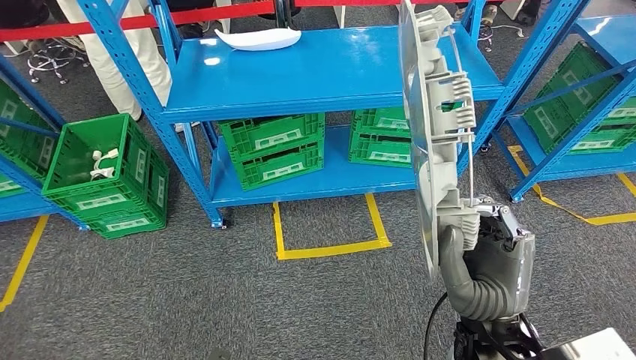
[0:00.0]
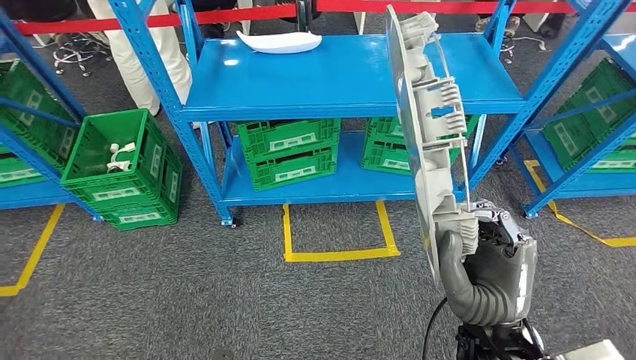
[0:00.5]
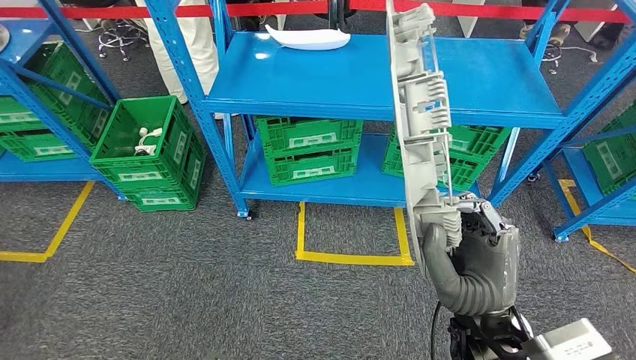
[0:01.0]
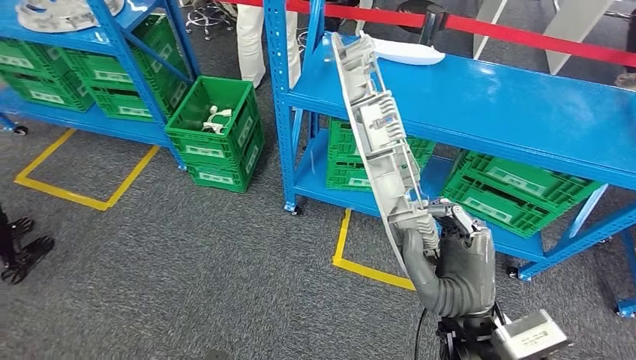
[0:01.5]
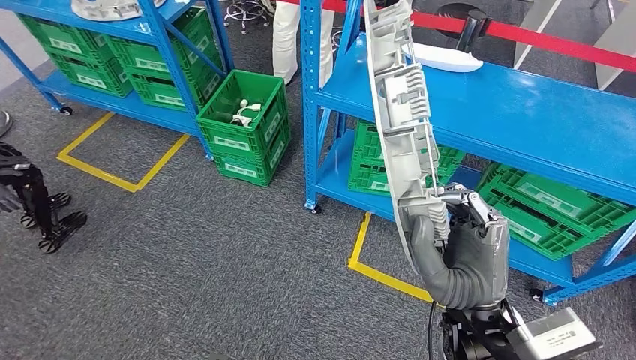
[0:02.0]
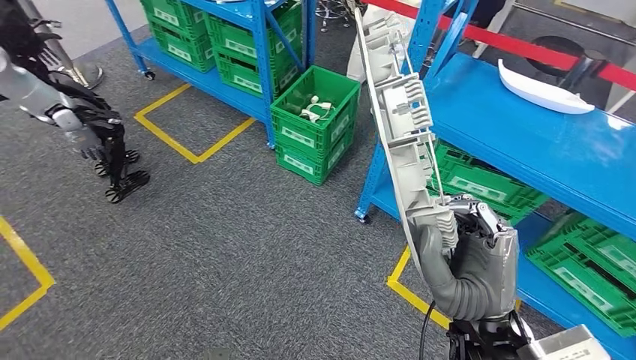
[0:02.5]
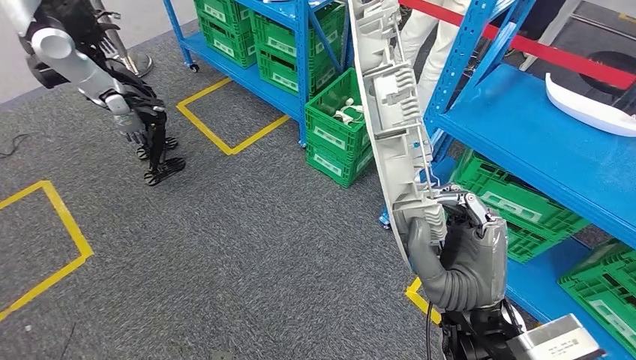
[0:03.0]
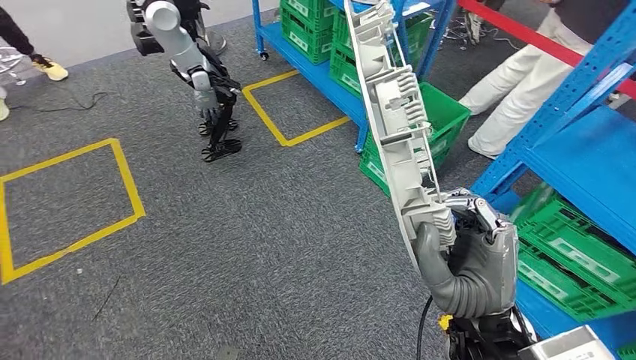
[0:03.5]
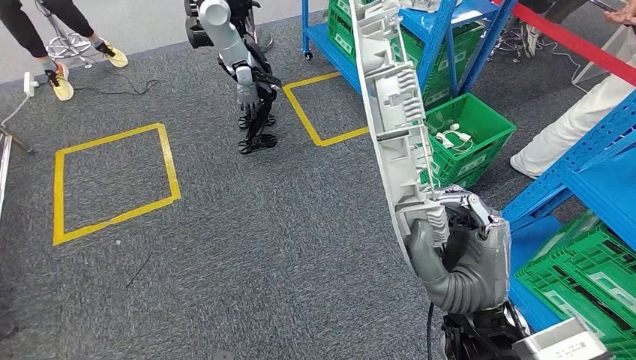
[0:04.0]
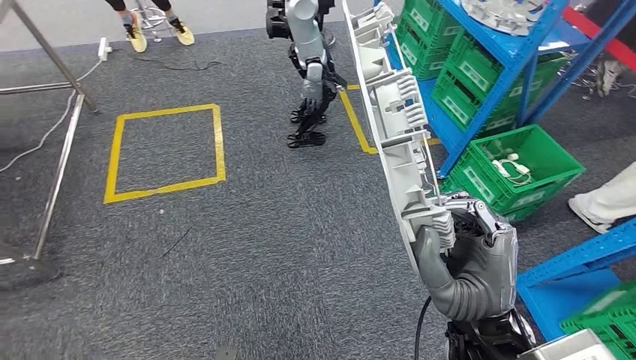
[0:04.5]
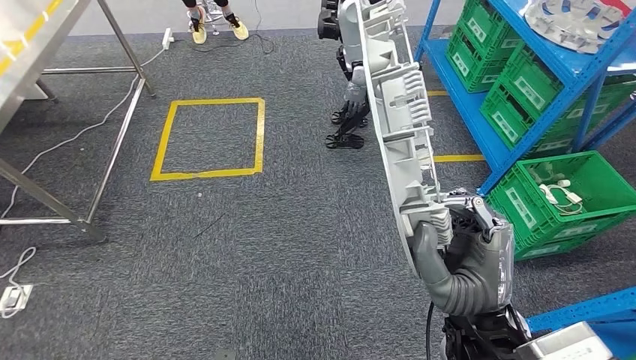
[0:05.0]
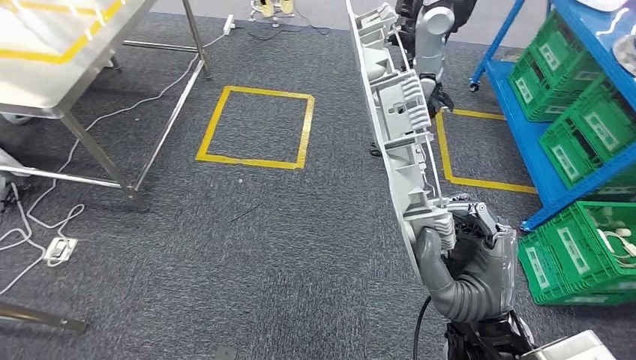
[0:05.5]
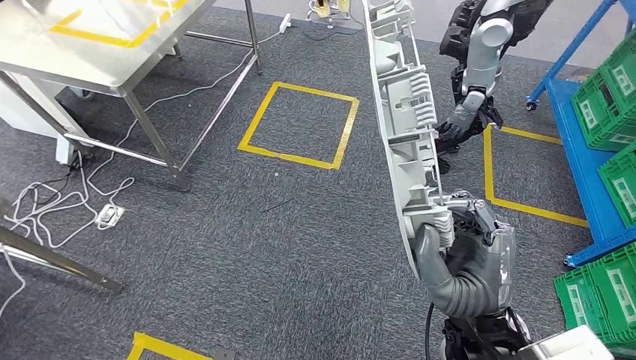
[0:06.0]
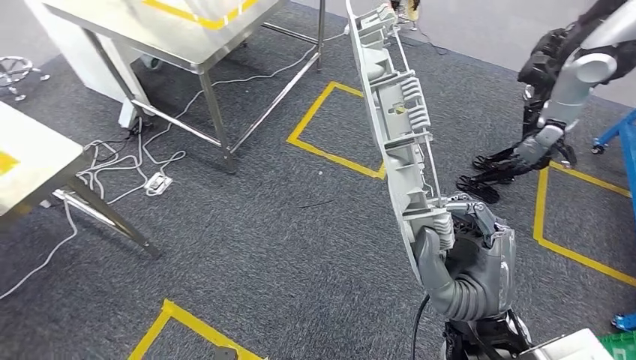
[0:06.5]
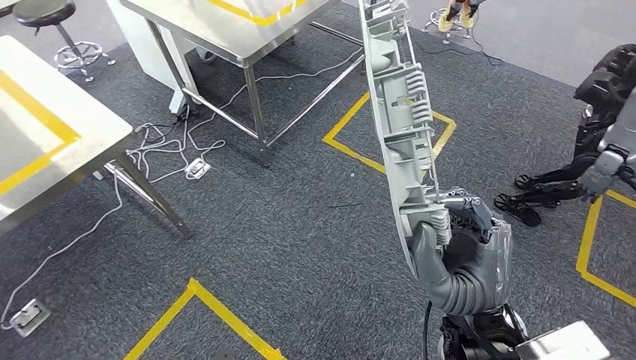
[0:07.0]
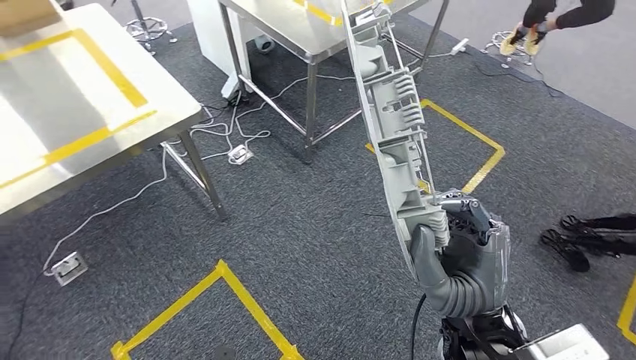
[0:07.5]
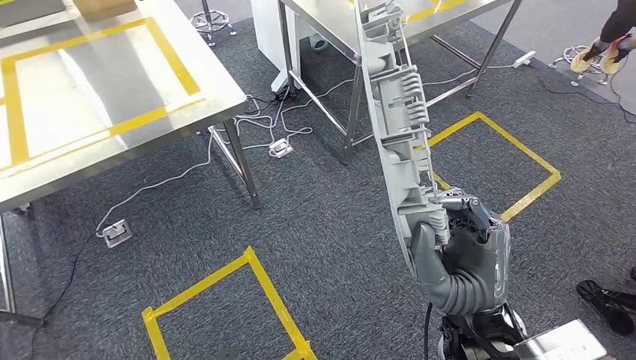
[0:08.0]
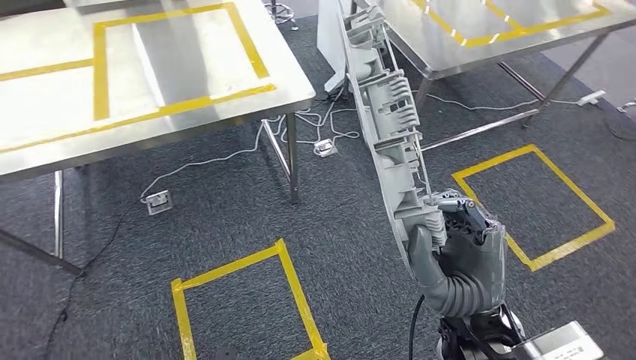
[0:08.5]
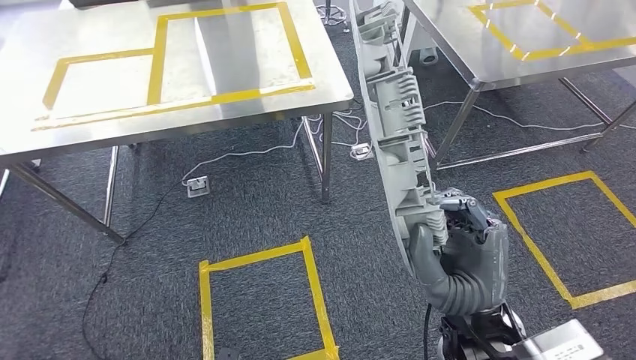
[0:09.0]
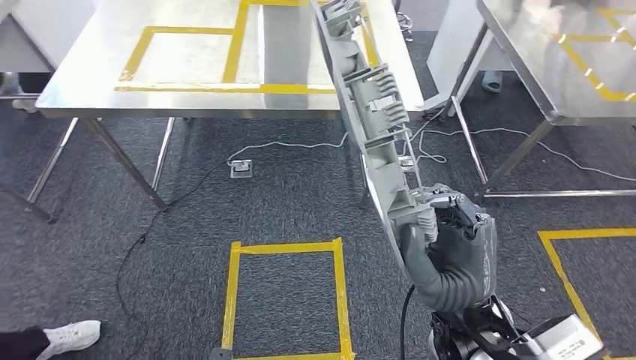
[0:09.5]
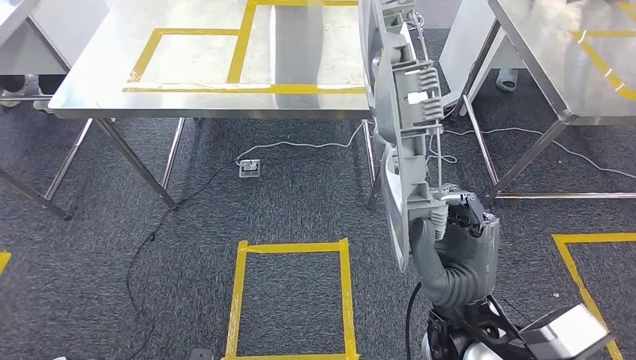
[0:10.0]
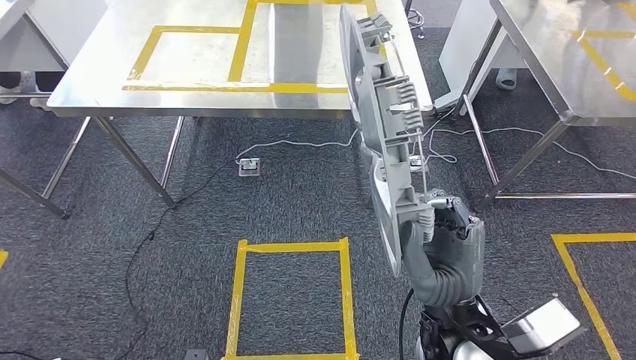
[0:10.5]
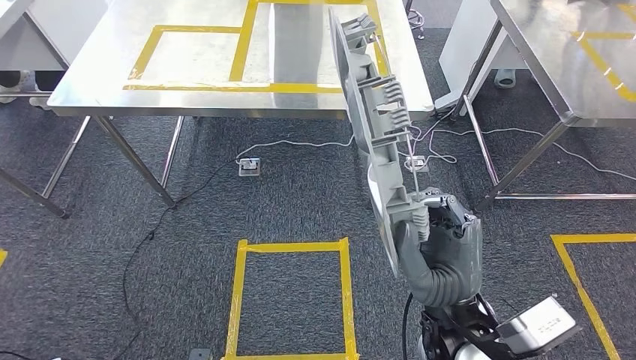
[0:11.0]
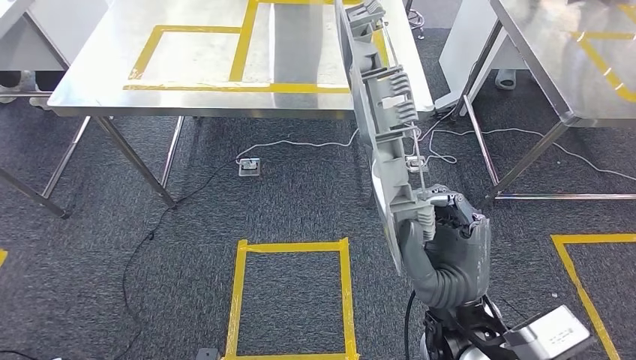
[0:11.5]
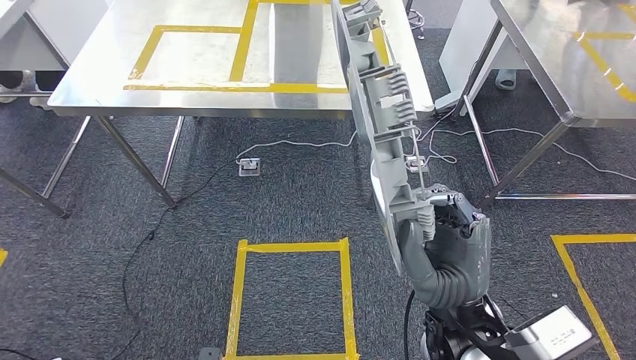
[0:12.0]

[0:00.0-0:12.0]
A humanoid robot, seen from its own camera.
0:10.0 to 0:12.0: The hands stay close to where they were, moving slightly.

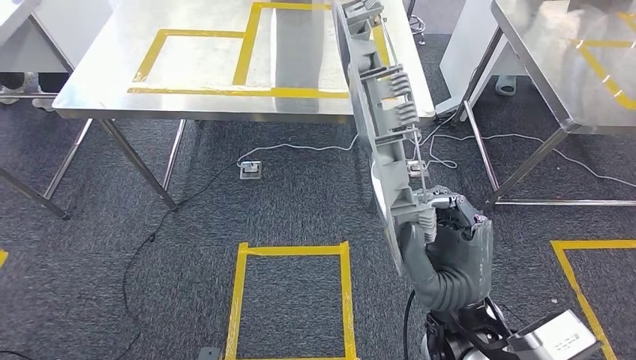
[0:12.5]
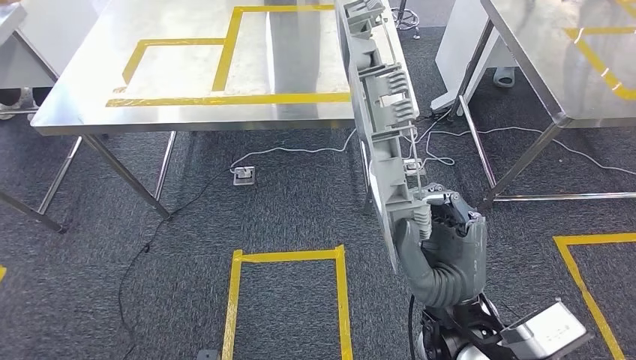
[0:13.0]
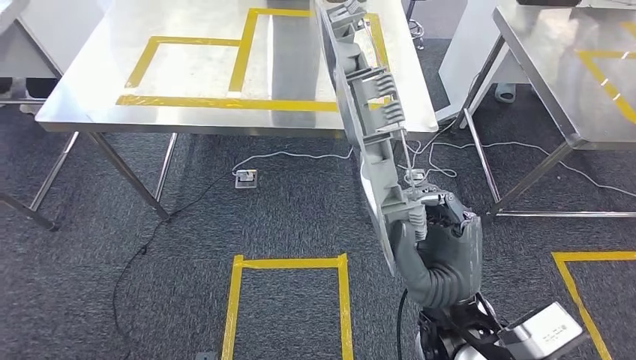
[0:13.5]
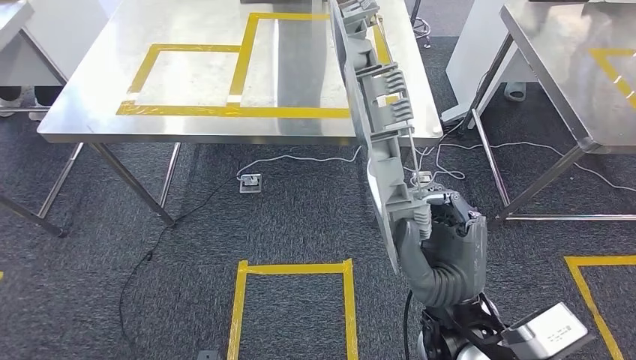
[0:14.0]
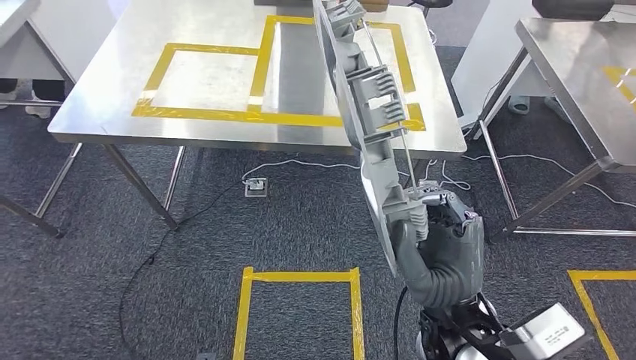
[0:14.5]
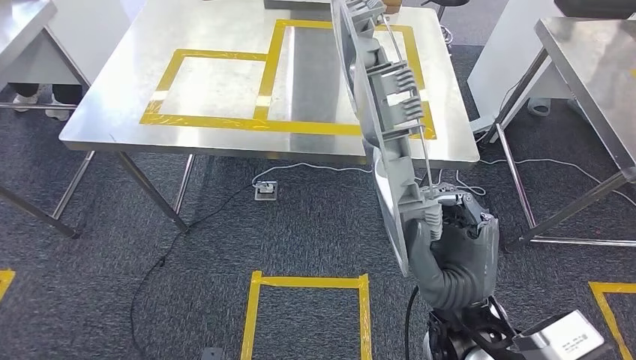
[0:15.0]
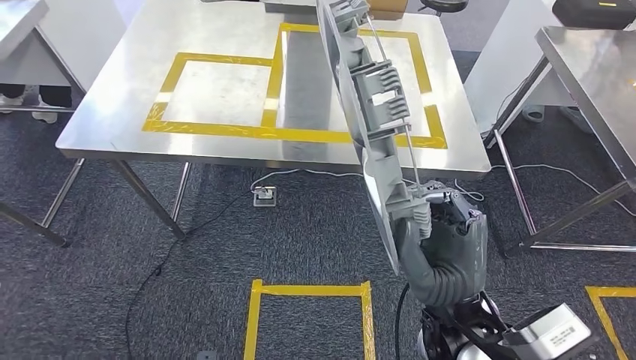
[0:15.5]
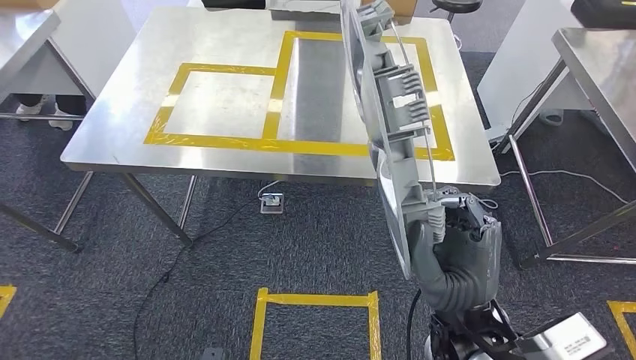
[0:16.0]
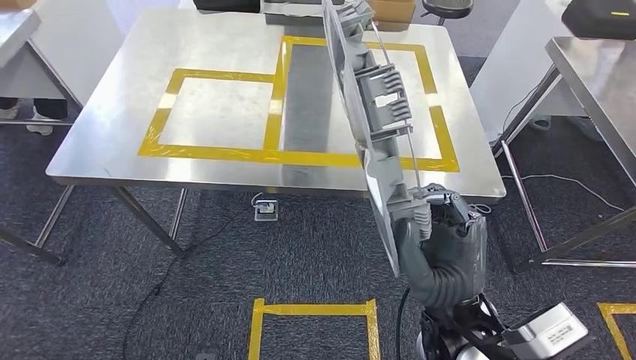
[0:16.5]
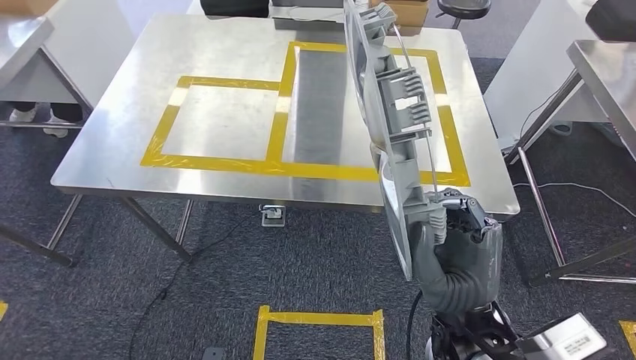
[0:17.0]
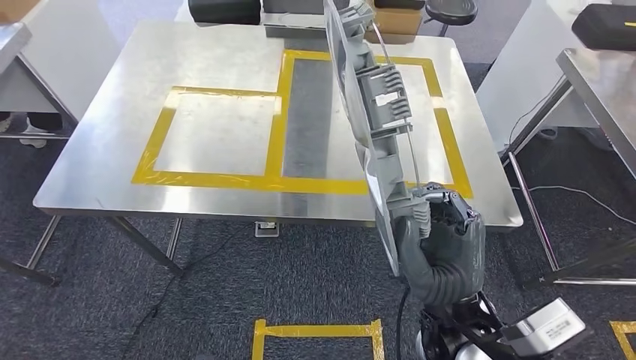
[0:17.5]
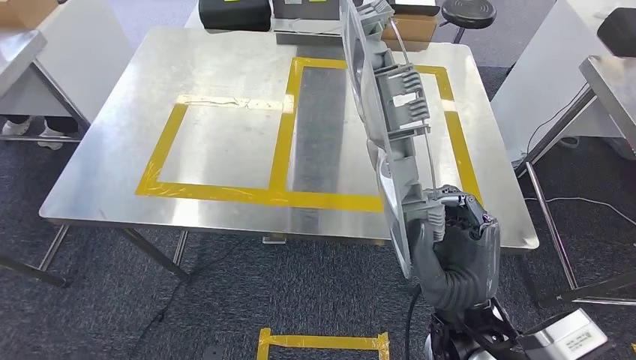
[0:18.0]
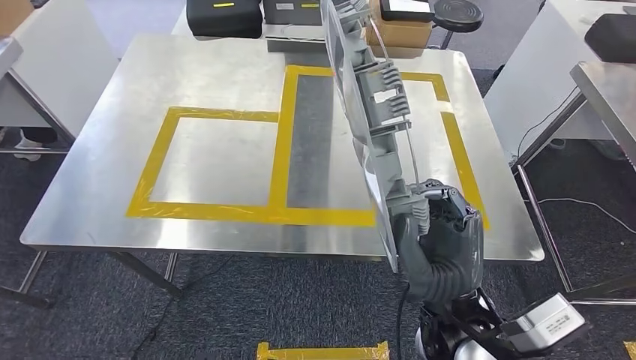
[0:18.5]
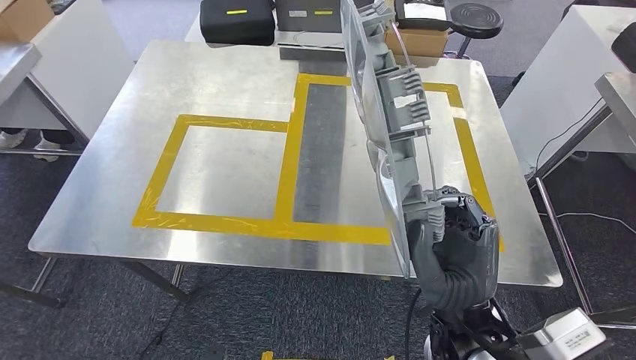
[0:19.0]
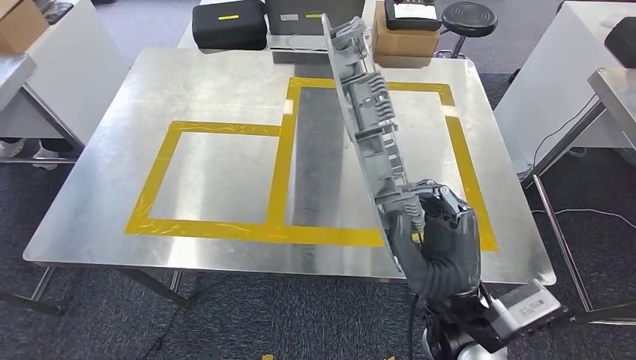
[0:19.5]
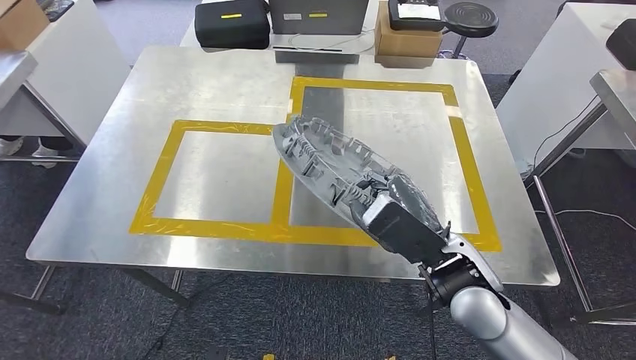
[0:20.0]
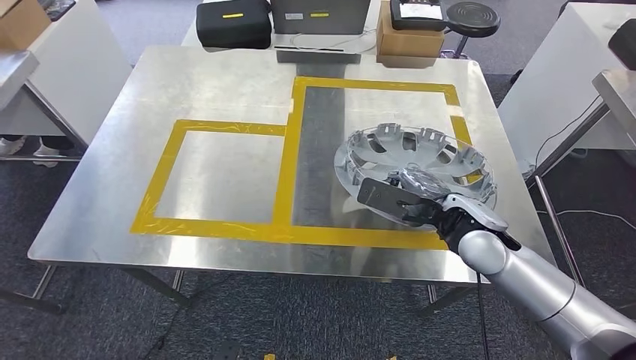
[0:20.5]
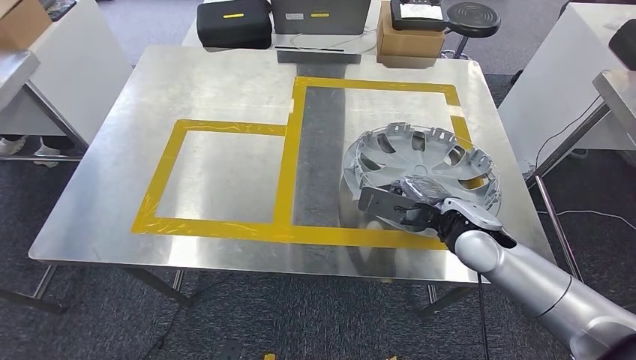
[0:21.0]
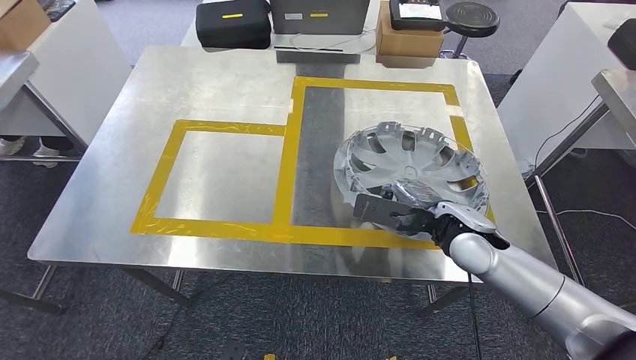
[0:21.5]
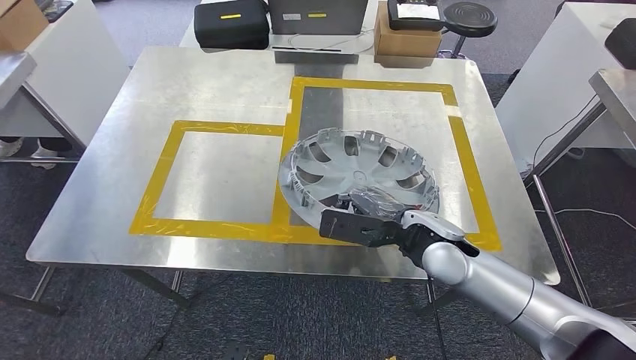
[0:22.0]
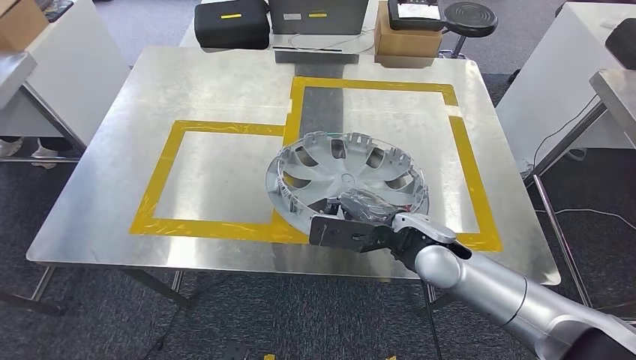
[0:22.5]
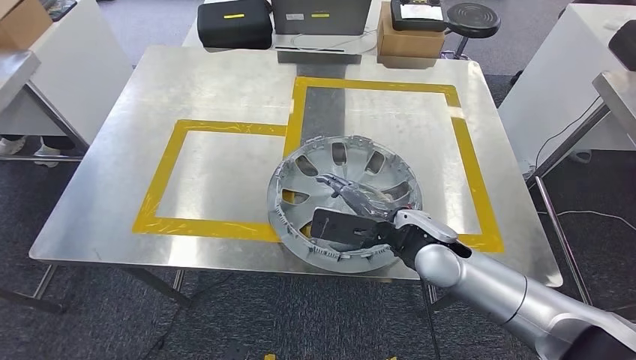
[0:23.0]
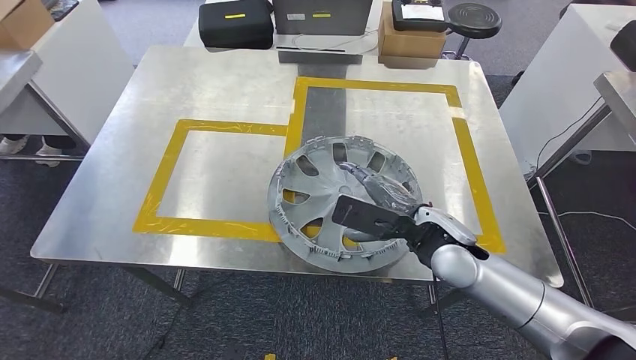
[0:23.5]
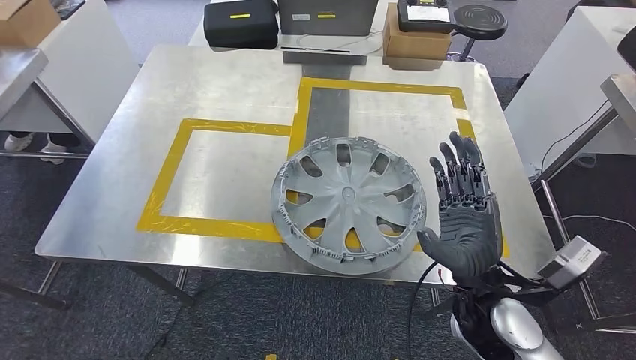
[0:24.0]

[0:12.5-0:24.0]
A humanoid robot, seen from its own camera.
Step, 0:12.5 to 0:17.0: Bring the small component to the front of the workbench.
0:20.0 to 0:22.0: The right hand moves forward, roughly 5 cm.
